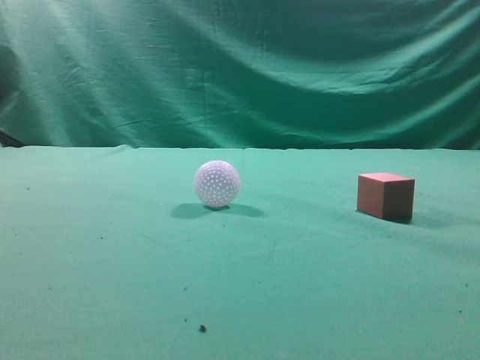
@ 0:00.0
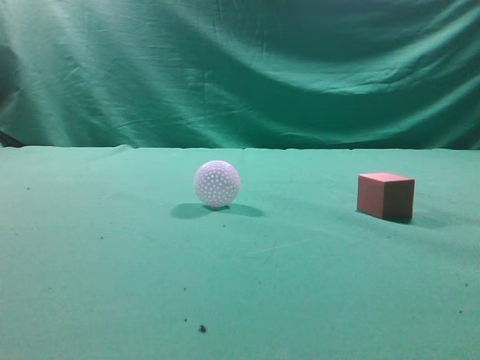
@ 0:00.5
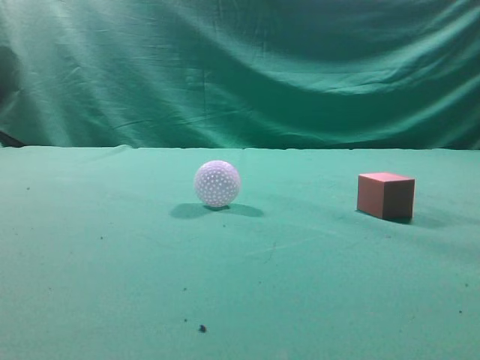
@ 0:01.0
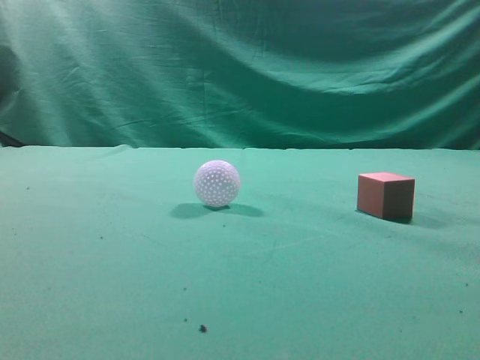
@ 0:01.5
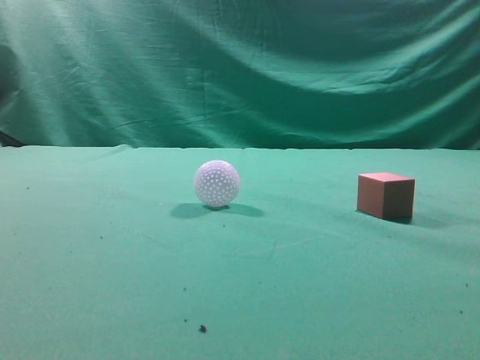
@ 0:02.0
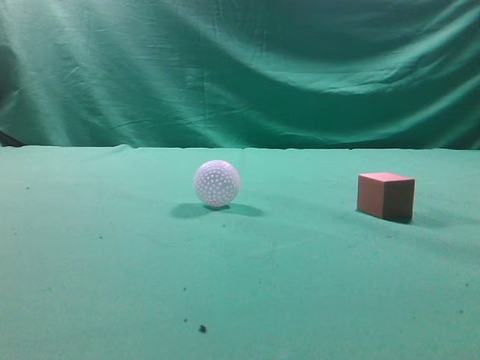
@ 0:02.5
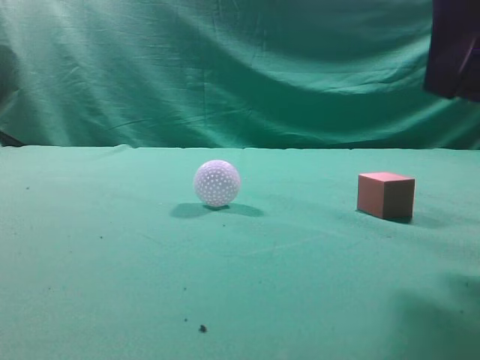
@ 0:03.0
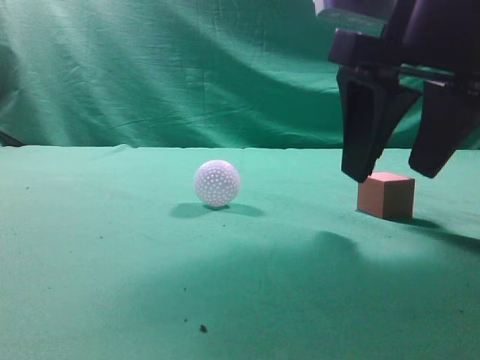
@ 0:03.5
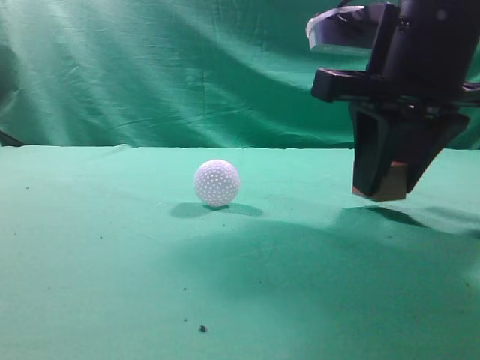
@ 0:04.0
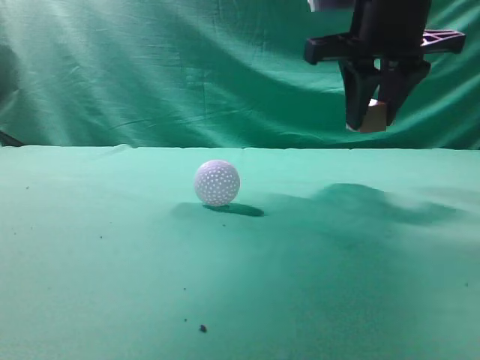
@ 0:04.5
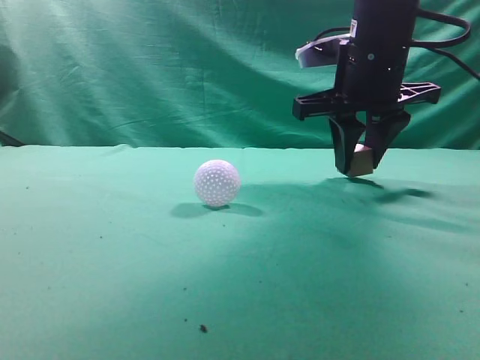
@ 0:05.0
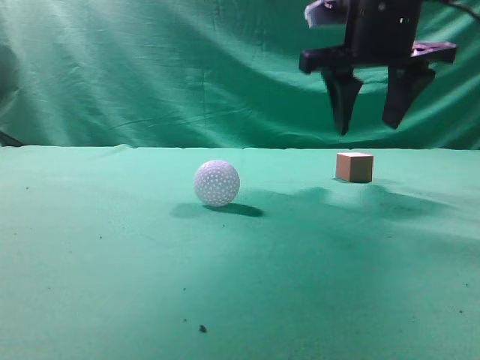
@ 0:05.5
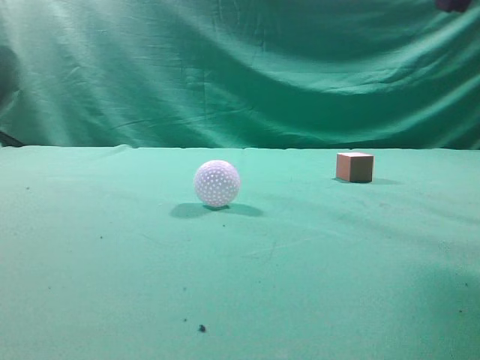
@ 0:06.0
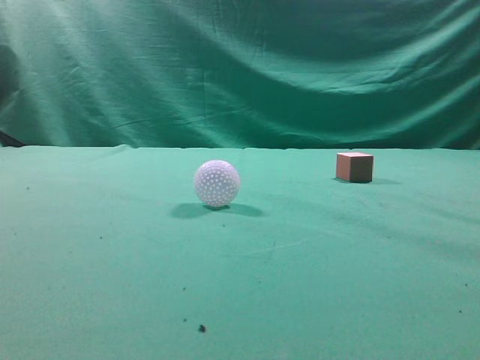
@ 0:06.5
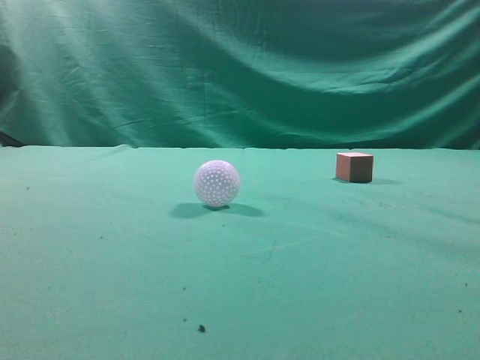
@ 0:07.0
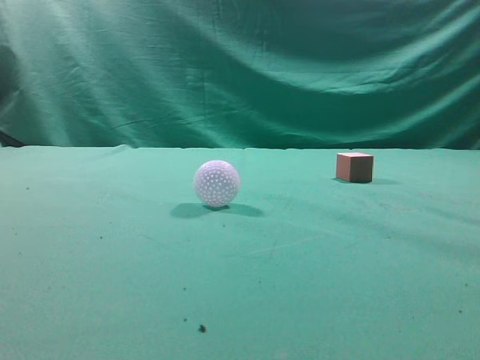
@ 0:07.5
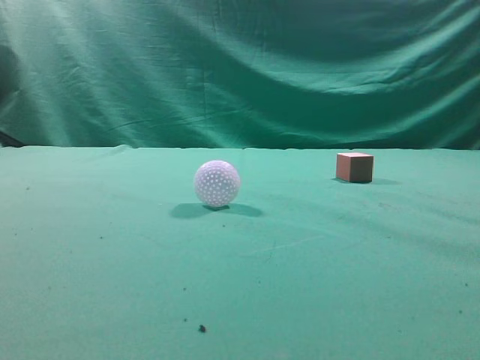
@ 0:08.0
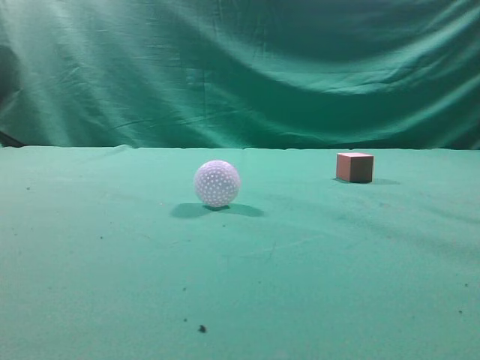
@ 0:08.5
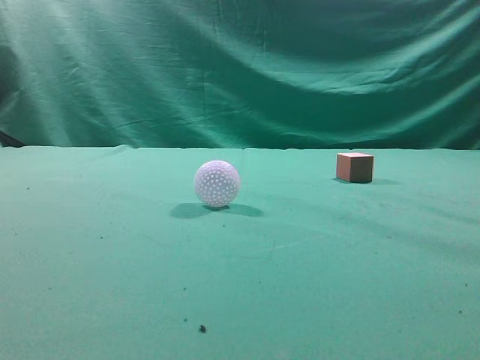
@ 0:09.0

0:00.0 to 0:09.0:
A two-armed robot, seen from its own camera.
Task of the whole recording: pick up the cube block and place it in another position on the table.
Step, 0:00.0 to 0:03.5: Pick up the small cube.
Step, 0:04.5 to 0:05.0: Place the small cube on the ahead of the table.
0:02.0 to 0:04.5: The right gripper travels forward and to the left by some 30 cm, and opens.
0:04.5 to 0:07.0: The right gripper heads backward, to the right and upward, covering about 20 cm, and closes.
